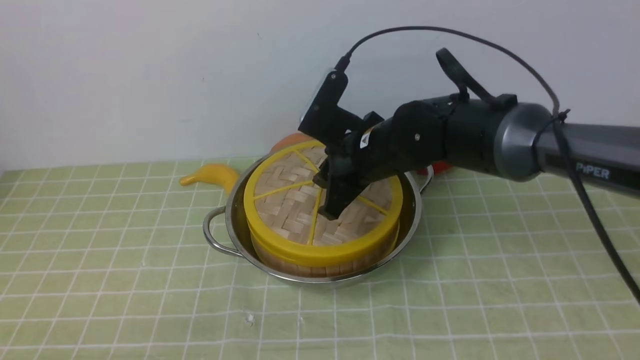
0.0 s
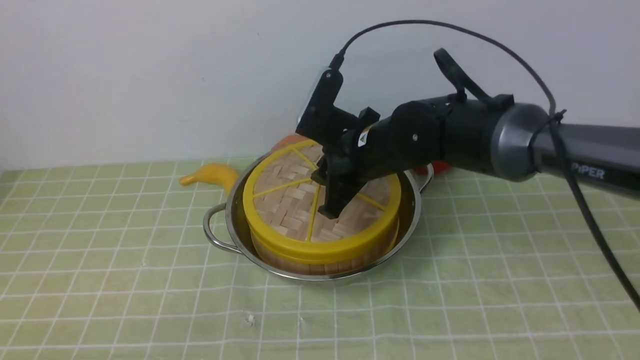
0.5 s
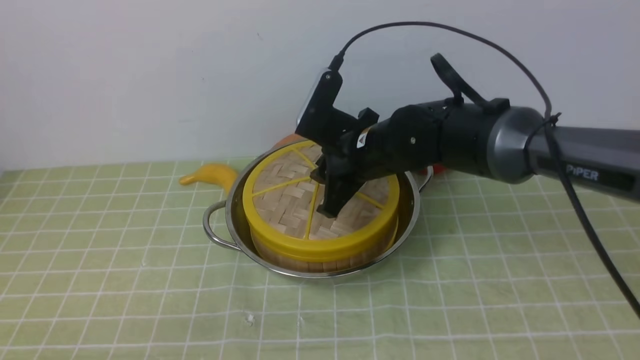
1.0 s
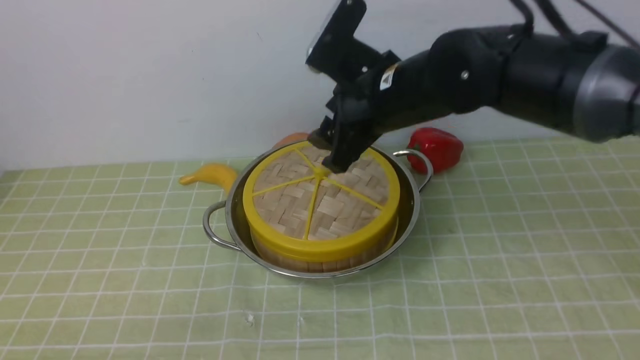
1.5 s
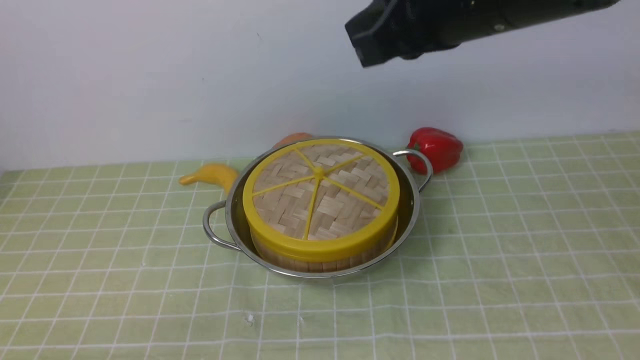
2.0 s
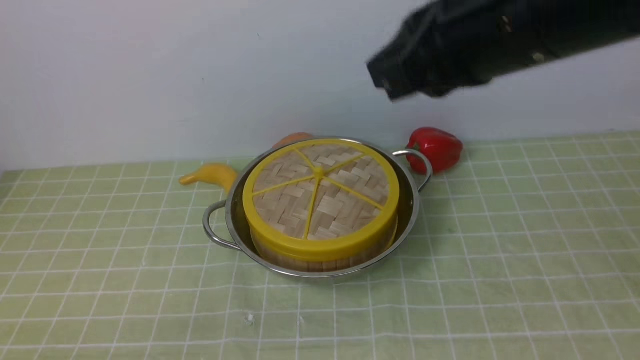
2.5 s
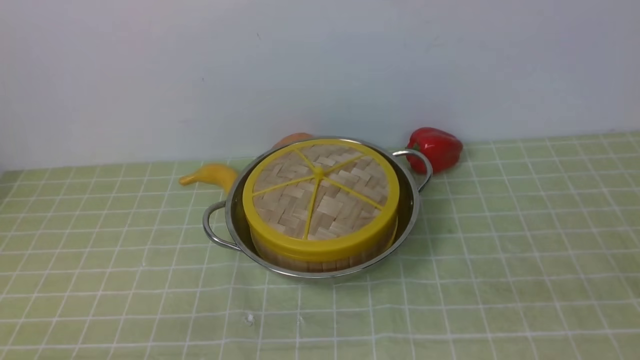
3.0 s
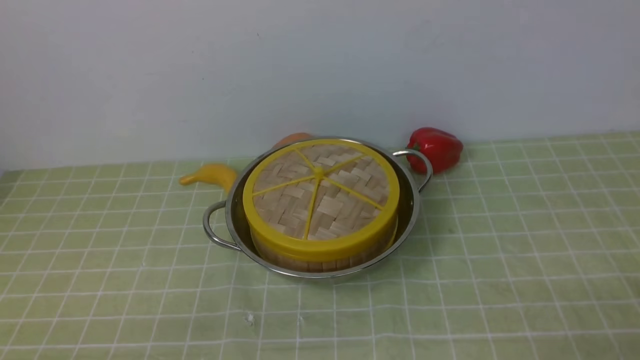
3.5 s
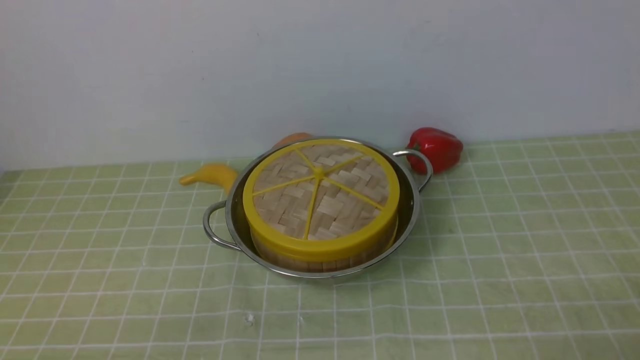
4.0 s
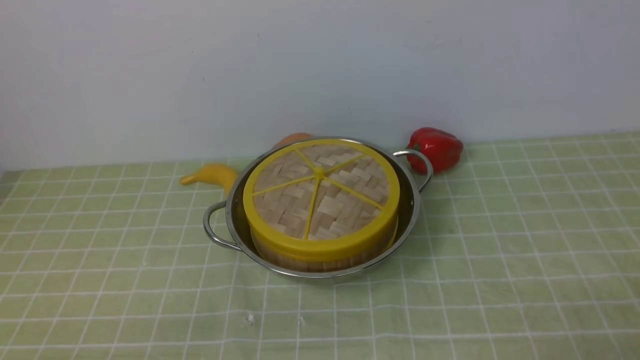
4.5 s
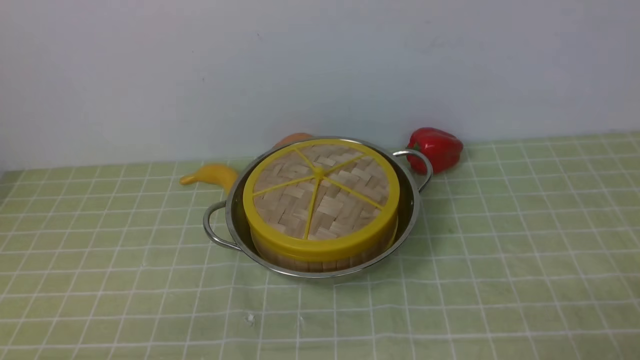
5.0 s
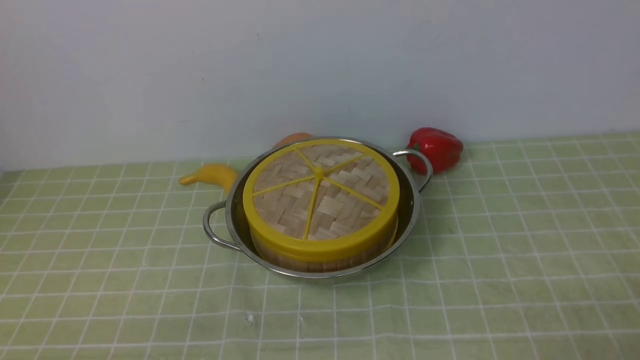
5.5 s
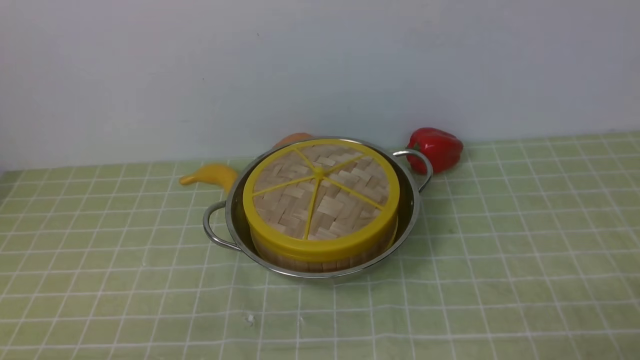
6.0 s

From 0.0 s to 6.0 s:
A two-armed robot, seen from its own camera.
Task of the whole recording: place the steamer in the pot on the green tablecloth, and put the lid on the steamer.
From 0.0 s to 2.0 s: The right gripper is displaced upward and backward by approximately 20 cm, and closes up.
From 2.0 s to 4.0 s: The right gripper travels backward, downward and to the right by about 40 cm, and opens up.
